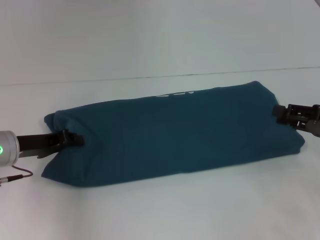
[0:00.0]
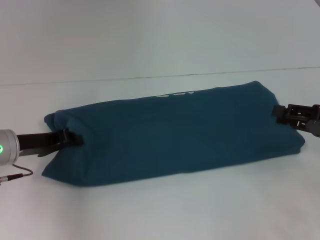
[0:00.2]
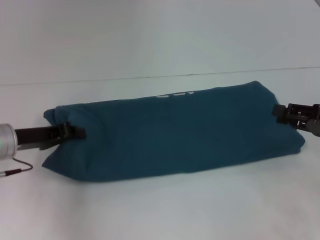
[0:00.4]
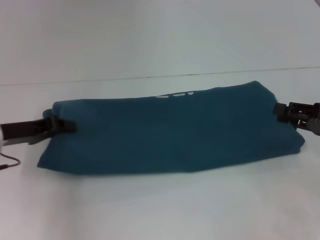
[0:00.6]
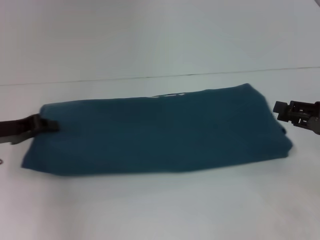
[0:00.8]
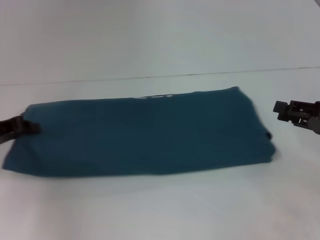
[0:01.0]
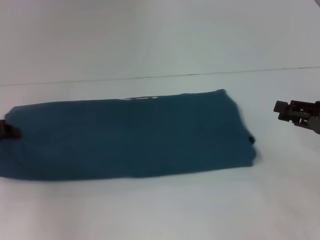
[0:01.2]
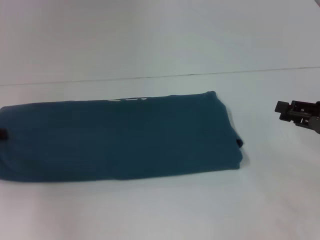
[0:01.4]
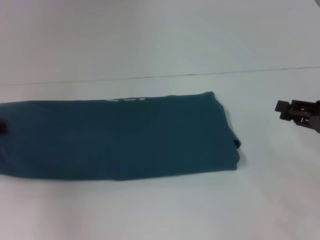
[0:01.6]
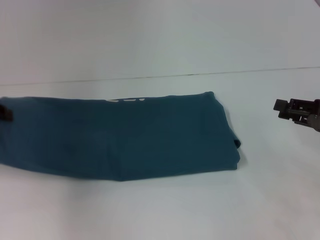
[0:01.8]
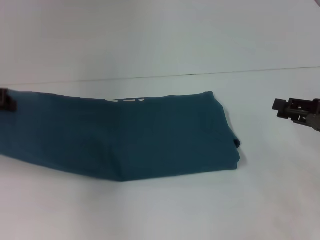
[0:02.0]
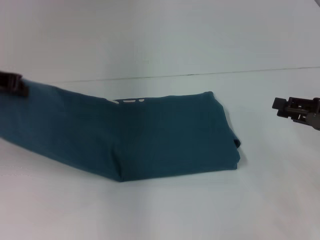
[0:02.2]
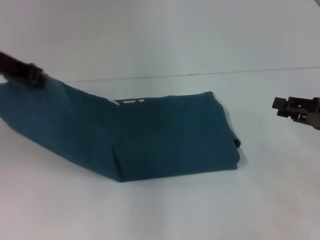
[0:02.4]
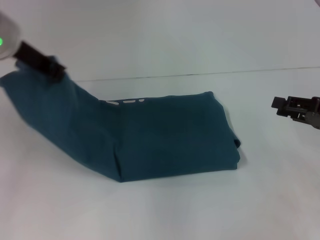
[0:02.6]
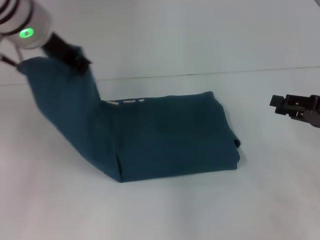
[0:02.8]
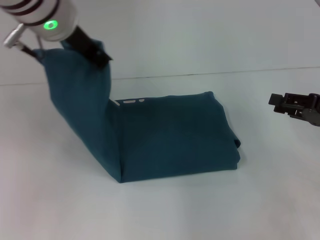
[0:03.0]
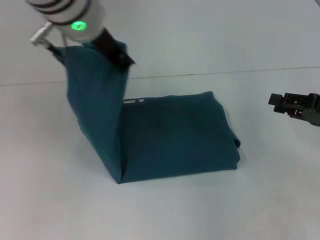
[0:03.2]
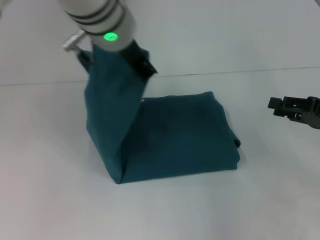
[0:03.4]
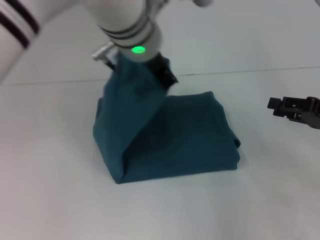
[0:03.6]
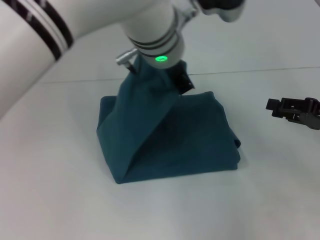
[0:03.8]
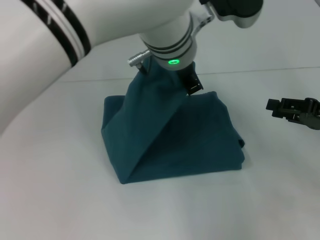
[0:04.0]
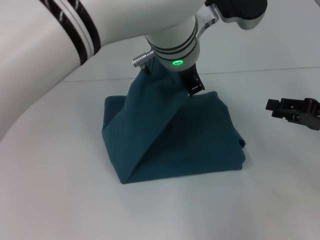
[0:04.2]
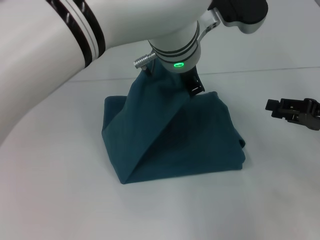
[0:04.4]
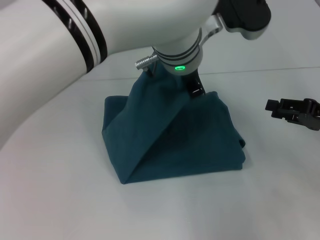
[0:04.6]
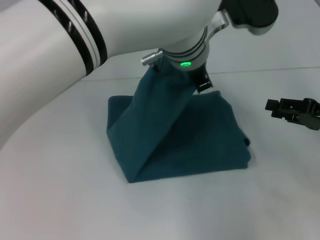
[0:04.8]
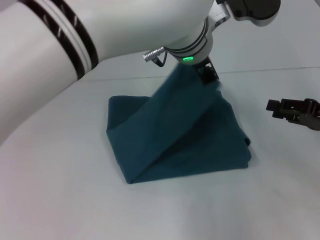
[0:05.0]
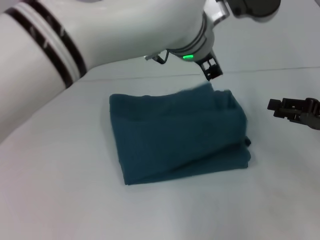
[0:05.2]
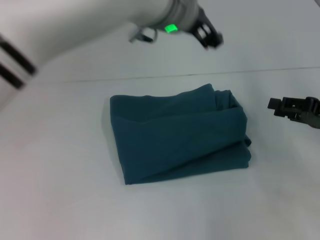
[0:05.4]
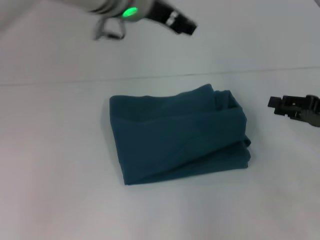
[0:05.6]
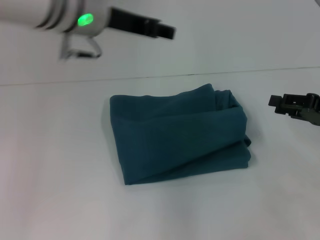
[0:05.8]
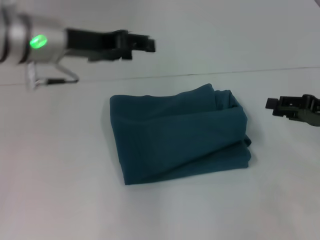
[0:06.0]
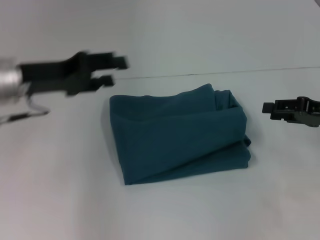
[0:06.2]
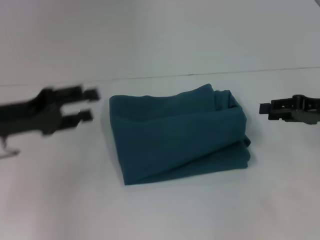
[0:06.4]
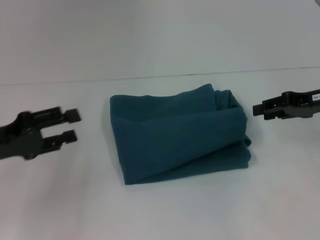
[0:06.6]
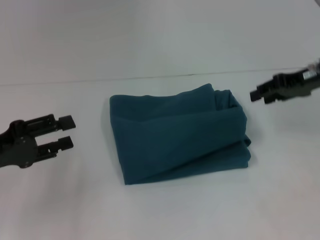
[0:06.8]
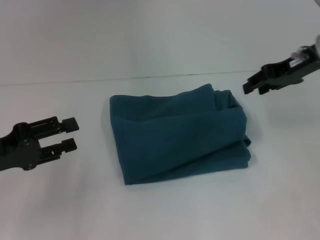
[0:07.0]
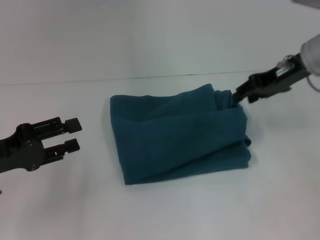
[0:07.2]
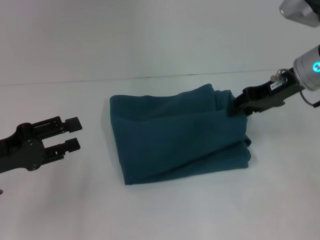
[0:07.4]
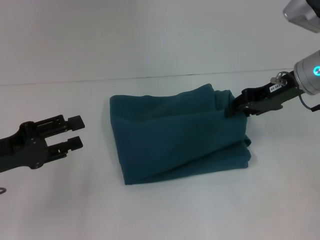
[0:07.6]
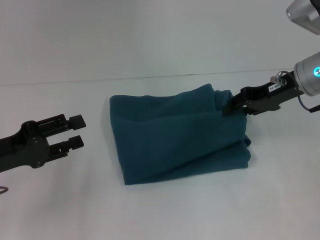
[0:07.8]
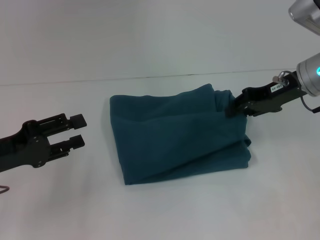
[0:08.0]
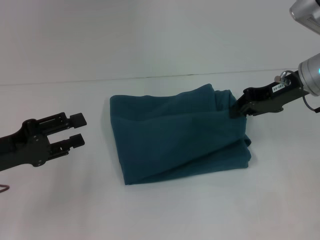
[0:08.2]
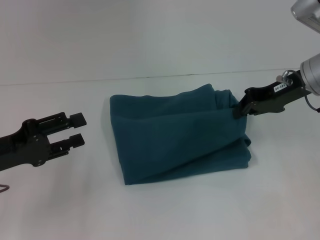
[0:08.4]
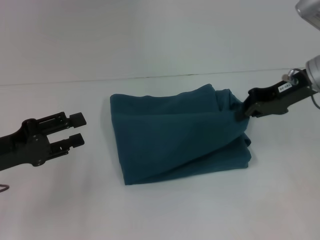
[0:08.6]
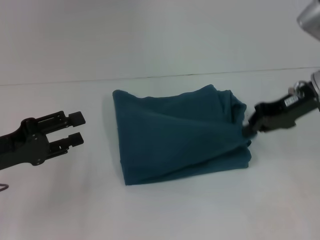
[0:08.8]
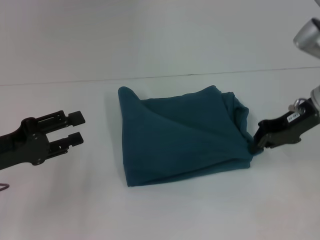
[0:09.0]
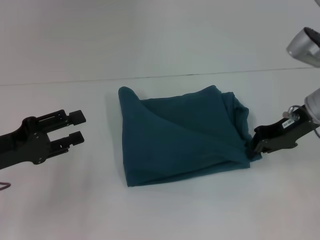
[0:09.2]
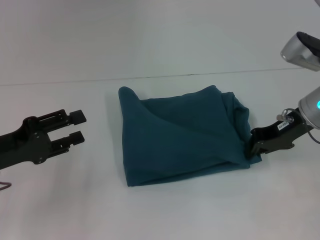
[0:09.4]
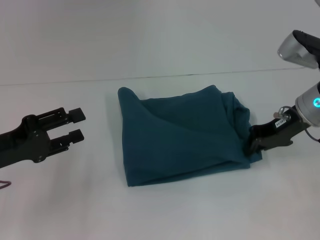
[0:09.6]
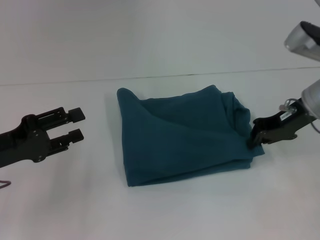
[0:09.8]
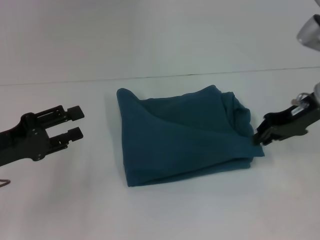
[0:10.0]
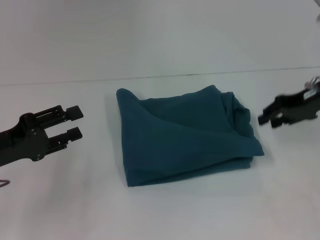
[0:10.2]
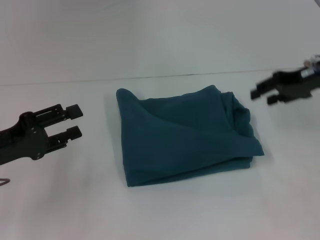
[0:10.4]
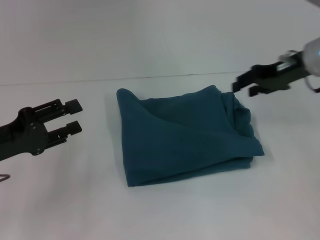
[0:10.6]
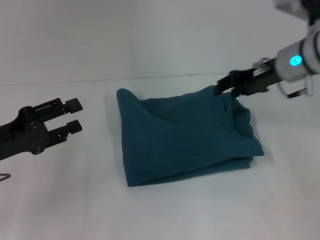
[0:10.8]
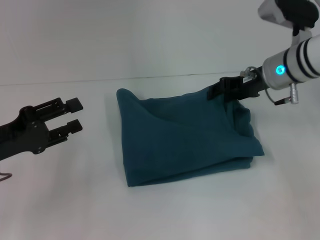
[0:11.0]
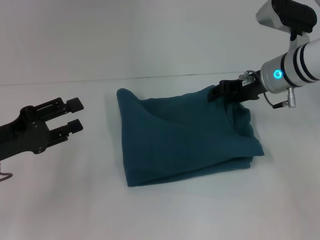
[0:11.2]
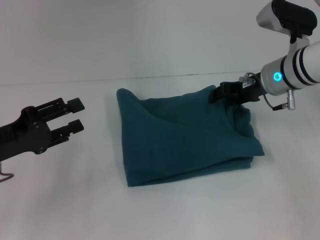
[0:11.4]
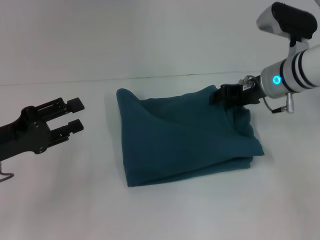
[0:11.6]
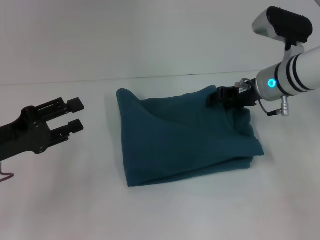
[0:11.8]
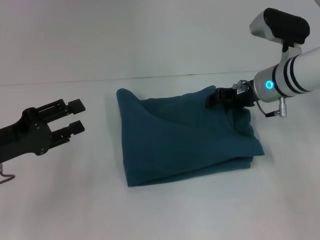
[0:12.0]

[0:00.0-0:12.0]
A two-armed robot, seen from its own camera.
Step, 0.0 to 5.2 s: Fold the clothes to the left.
0.0 to 1.6 s: The left gripper is displaced to the left and upward by about 10 cm.
1.6 to 3.0 s: The left gripper is displaced to the right and upward by approximately 30 cm.
3.0 to 4.4 s: The left gripper is displaced to the right by some 15 cm.
4.4 to 6.0 s: The left gripper goes approximately 20 cm to the left, and opens up.
6.0 to 7.6 s: The right gripper travels to the left, forward and upward by roughly 15 cm; the left gripper moves to the left, downward and backward, roughly 20 cm.
7.6 to 9.0 s: The right gripper closes its fingers.
9.0 to 10.4 s: The right gripper shifts by roughly 5 cm, and opens its fingers.
10.4 to 12.0 s: The right gripper goes roughly 10 cm to the left and downward.

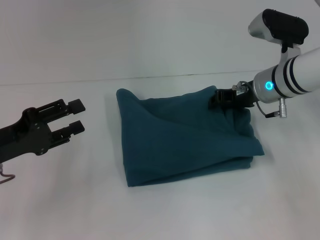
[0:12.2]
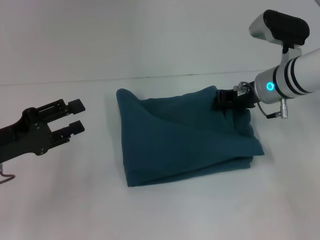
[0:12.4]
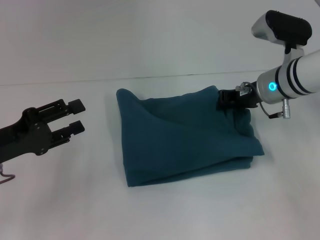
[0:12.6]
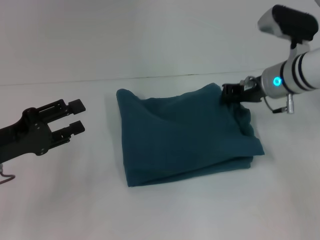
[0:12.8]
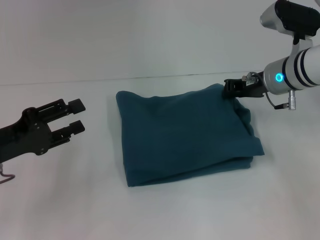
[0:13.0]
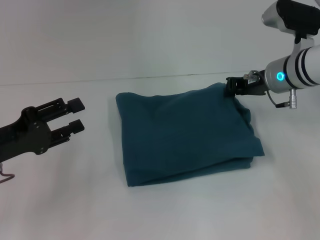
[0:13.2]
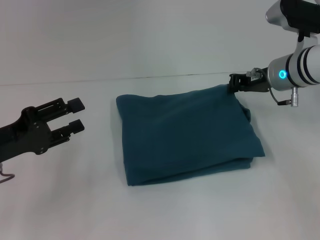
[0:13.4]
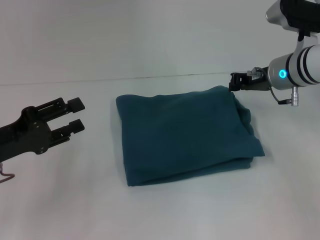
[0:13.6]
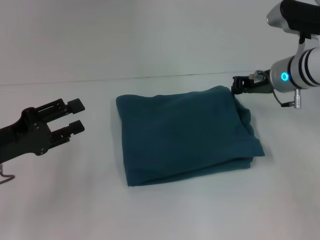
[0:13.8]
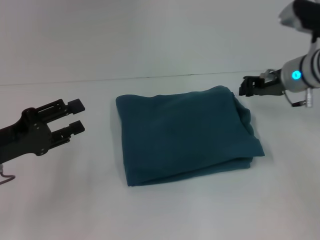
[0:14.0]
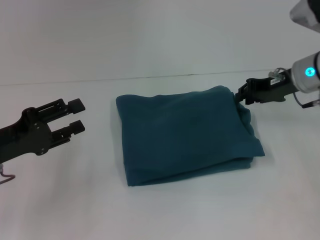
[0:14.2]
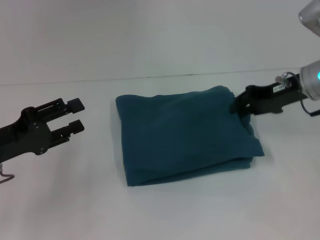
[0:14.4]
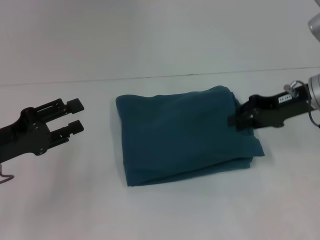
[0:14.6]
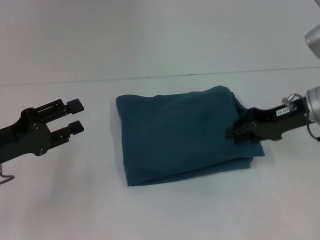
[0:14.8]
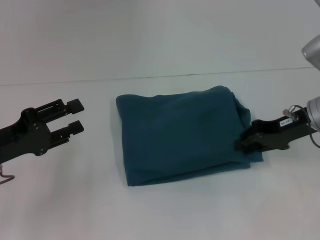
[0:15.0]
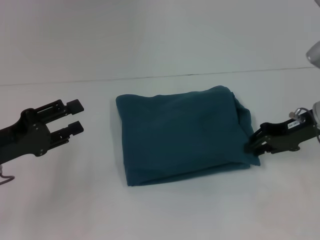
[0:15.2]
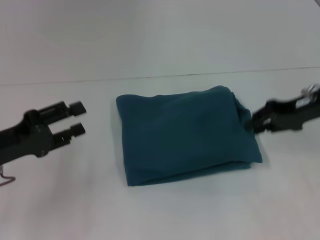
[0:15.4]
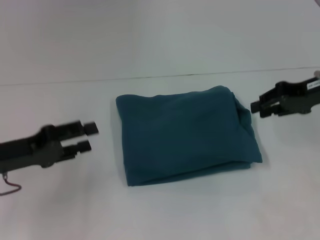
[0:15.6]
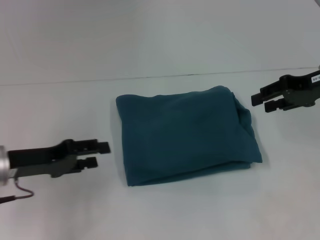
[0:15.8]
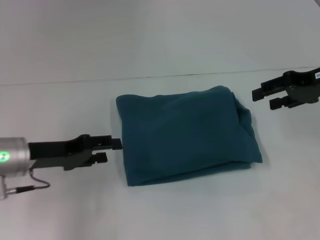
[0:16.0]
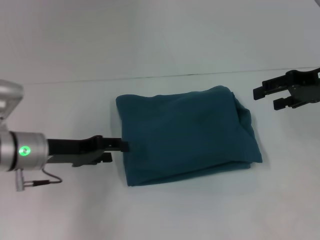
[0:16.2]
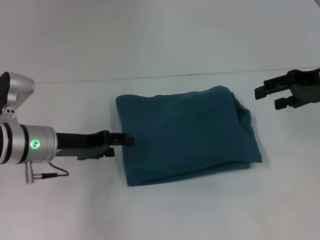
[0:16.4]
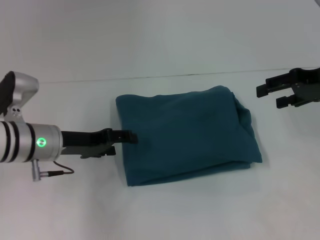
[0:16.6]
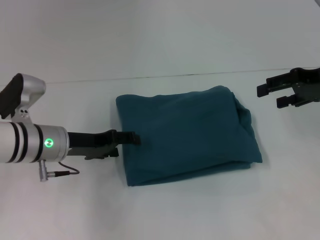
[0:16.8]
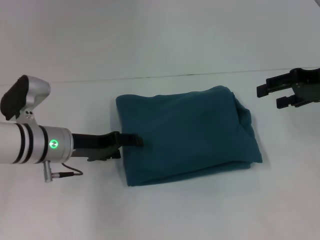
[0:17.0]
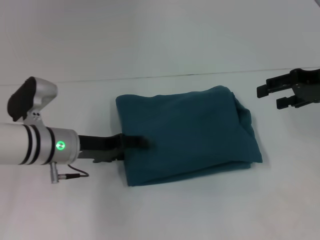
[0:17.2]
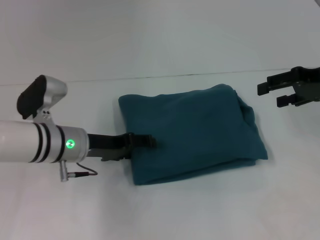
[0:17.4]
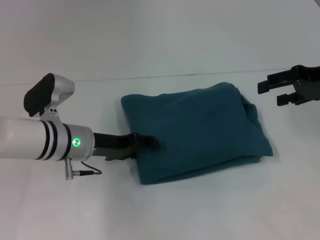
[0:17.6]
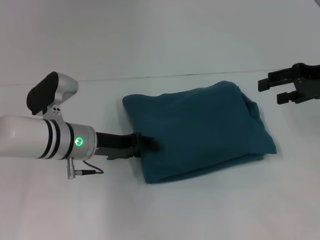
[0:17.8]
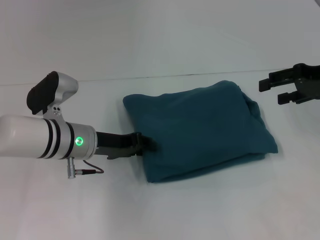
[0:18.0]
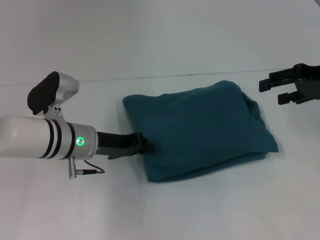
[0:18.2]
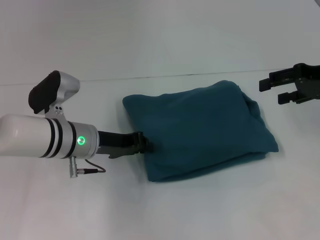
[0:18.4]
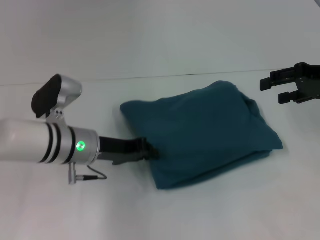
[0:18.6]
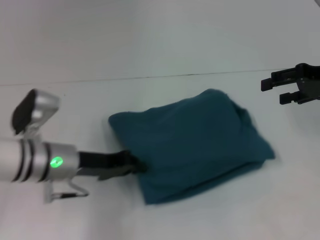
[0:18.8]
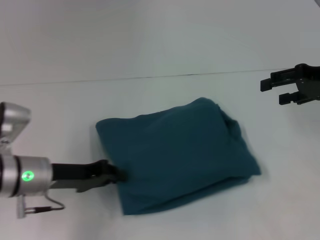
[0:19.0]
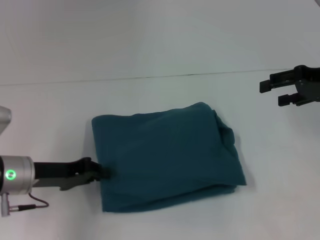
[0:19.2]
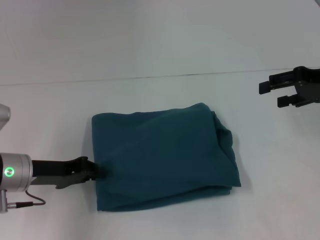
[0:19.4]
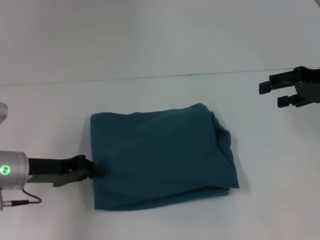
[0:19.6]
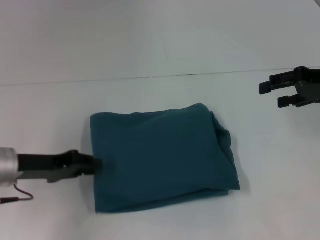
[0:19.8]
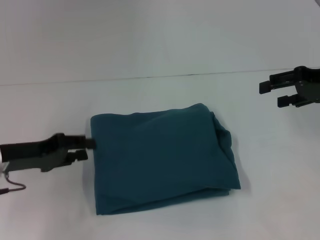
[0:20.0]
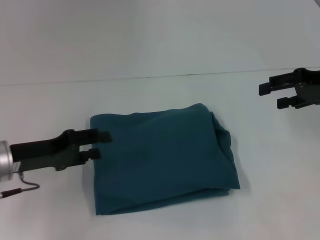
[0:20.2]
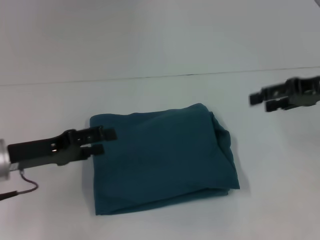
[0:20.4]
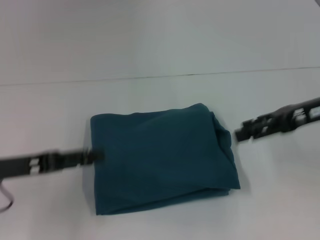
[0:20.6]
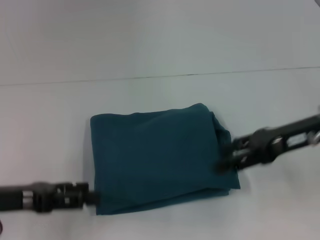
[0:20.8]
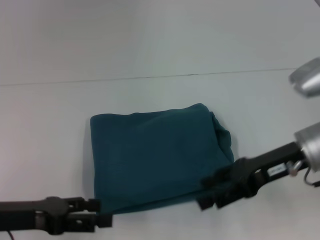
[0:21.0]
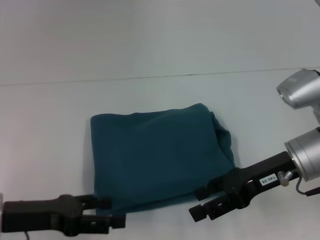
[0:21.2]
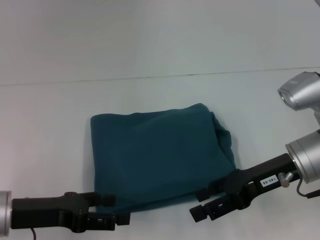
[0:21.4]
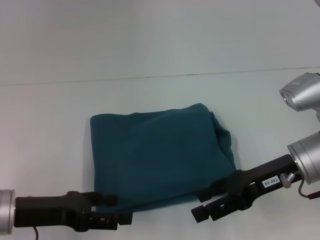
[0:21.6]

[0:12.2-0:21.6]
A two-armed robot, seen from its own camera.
12.2 to 13.8 s: The right gripper closes up.
13.8 to 15.4 s: The right gripper goes roughly 10 cm to the right and backward.
15.4 to 17.0 s: The right gripper changes place by roughly 5 cm, and opens; the left gripper travels to the right and forward by roughly 15 cm.
17.0 to 18.4 s: The left gripper closes.
18.4 to 20.0 s: The left gripper heads to the left and backward, covering some 15 cm.
20.0 to 21.6 s: The right gripper shifts some 15 cm to the left, downward and backward. Meanwhile the left gripper travels backward by about 5 cm, and opens its fingers.

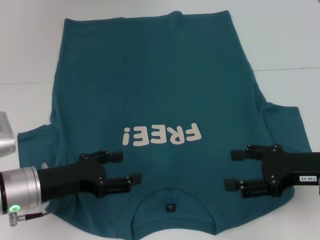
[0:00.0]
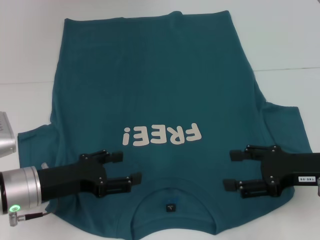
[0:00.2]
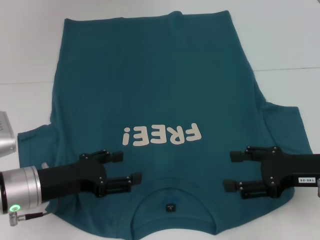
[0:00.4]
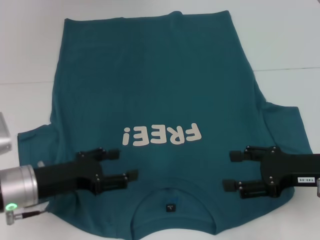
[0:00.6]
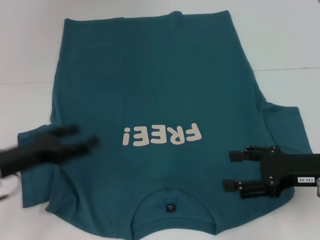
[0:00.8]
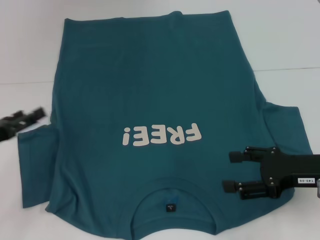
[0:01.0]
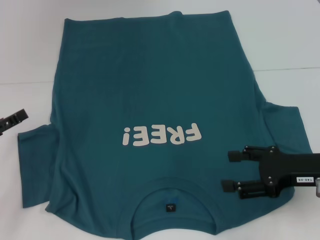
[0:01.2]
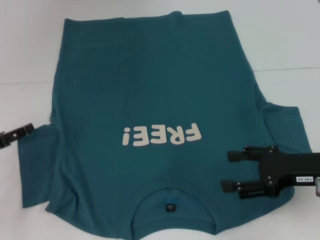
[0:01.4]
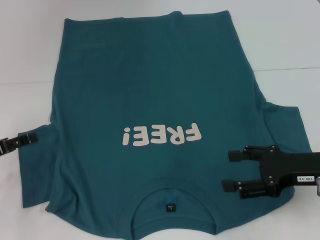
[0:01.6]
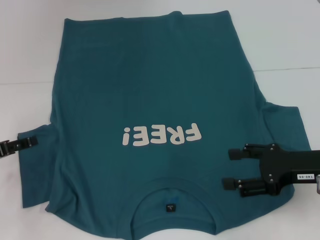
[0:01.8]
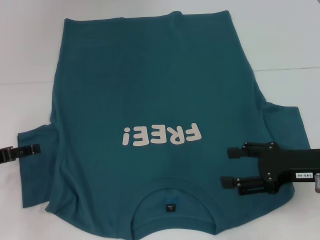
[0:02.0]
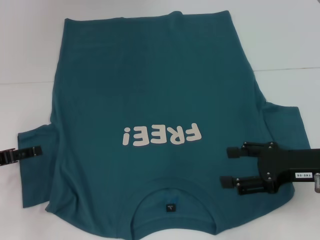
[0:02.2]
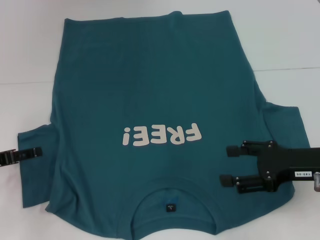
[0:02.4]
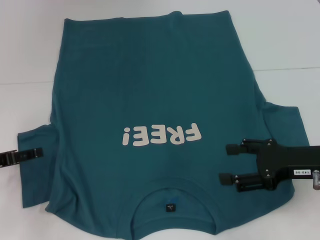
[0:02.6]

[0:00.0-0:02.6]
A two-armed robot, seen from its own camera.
0.0 to 1.2 s: The left gripper shifts about 10 cm to the left.
